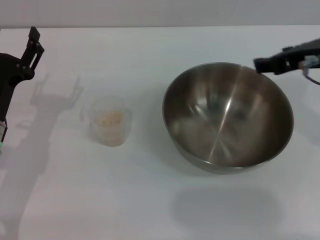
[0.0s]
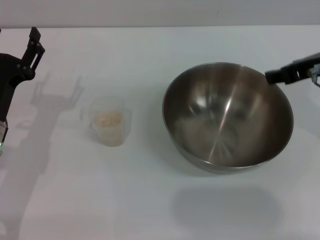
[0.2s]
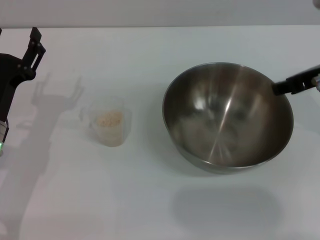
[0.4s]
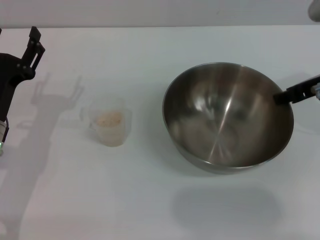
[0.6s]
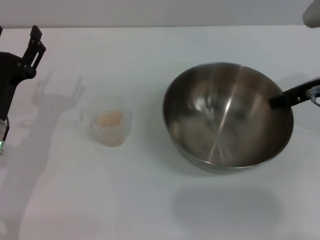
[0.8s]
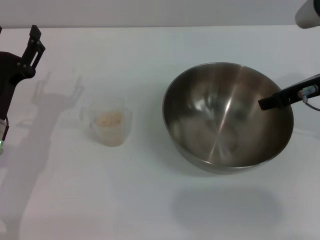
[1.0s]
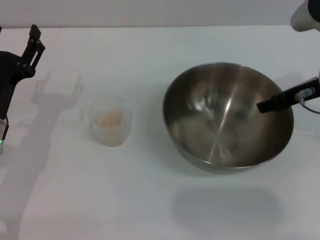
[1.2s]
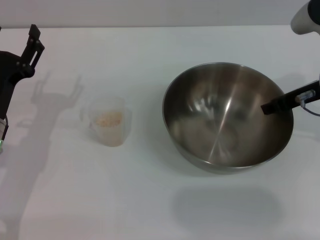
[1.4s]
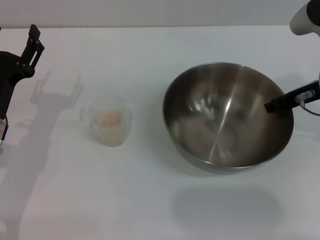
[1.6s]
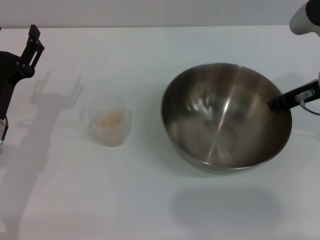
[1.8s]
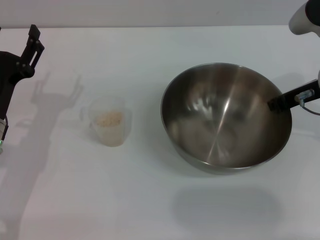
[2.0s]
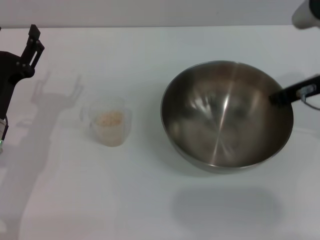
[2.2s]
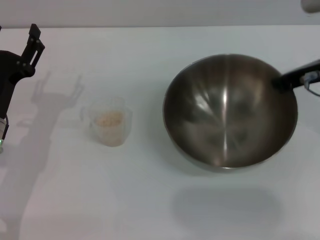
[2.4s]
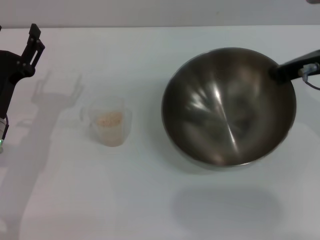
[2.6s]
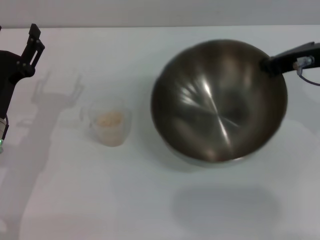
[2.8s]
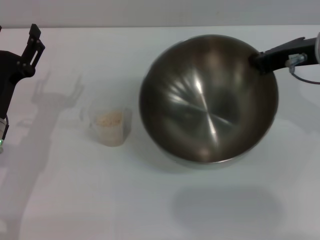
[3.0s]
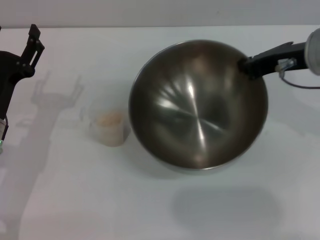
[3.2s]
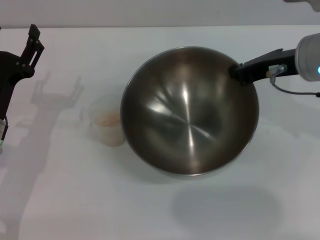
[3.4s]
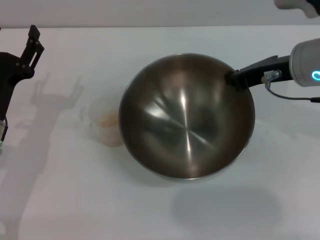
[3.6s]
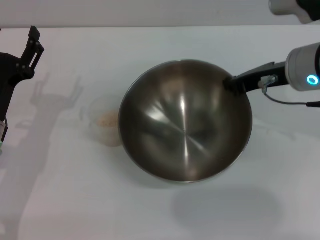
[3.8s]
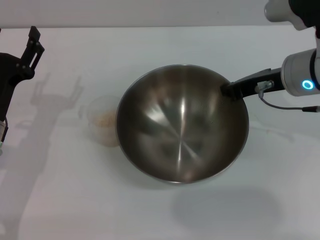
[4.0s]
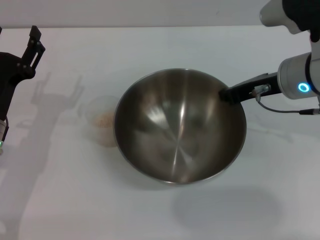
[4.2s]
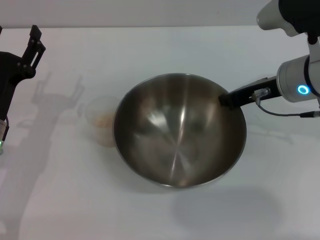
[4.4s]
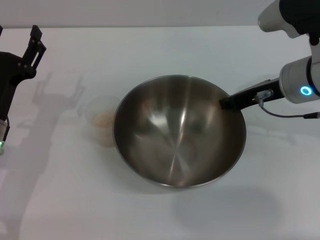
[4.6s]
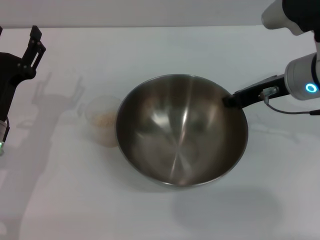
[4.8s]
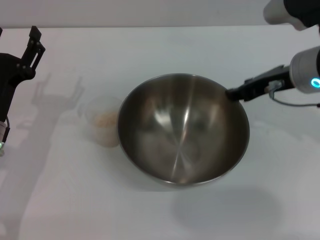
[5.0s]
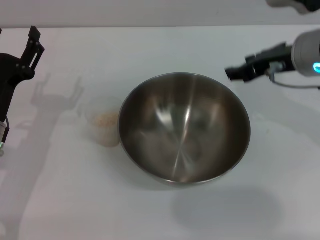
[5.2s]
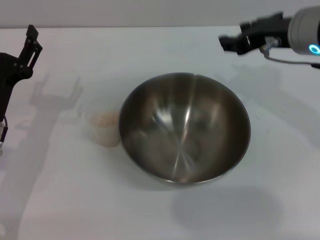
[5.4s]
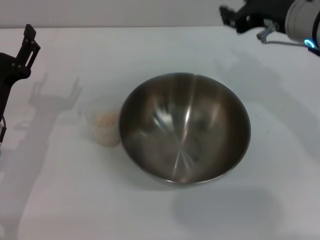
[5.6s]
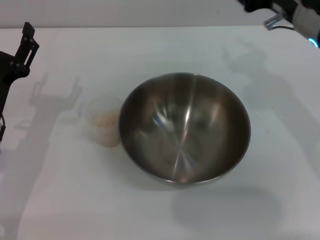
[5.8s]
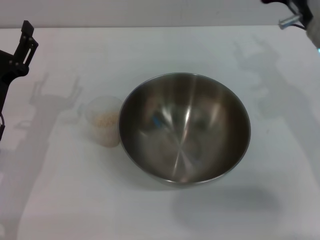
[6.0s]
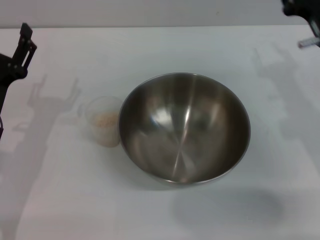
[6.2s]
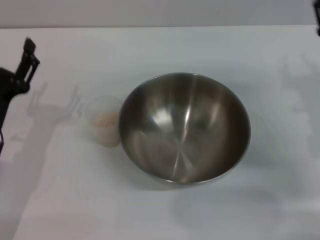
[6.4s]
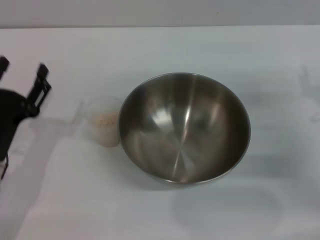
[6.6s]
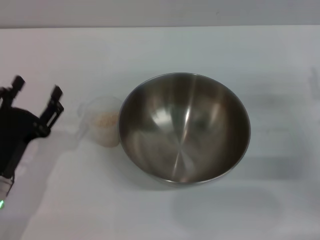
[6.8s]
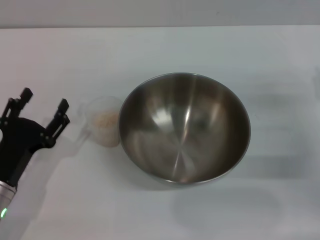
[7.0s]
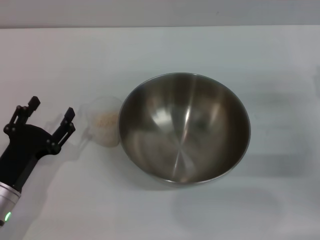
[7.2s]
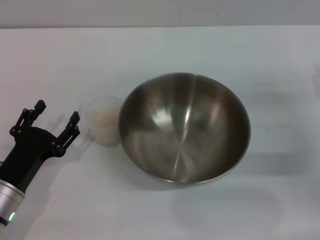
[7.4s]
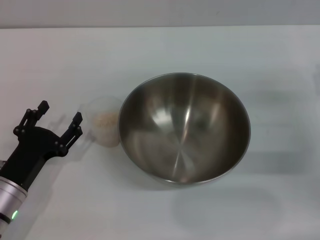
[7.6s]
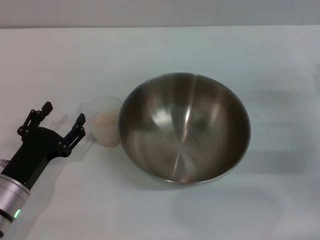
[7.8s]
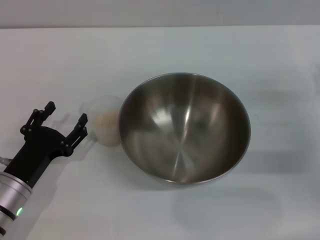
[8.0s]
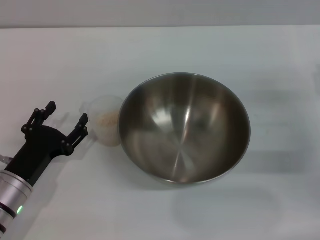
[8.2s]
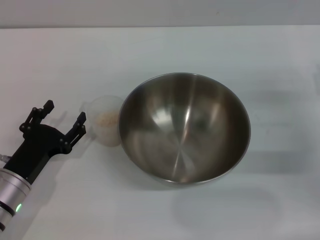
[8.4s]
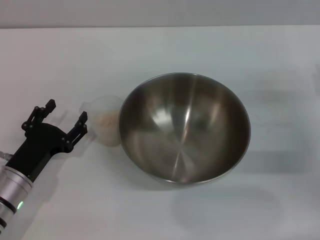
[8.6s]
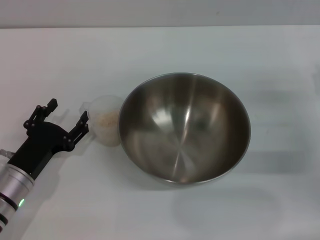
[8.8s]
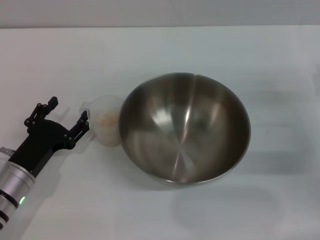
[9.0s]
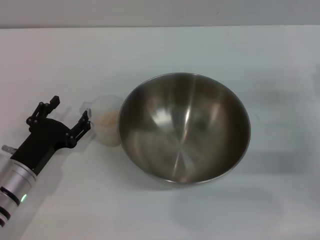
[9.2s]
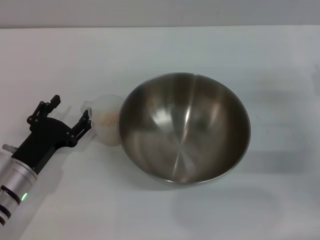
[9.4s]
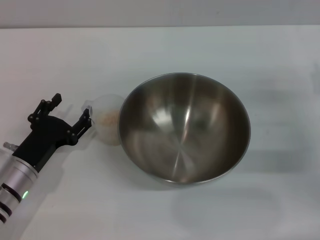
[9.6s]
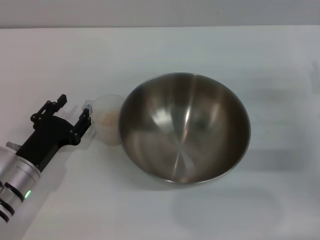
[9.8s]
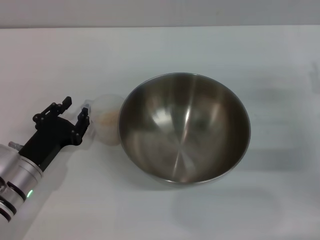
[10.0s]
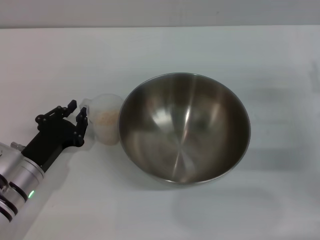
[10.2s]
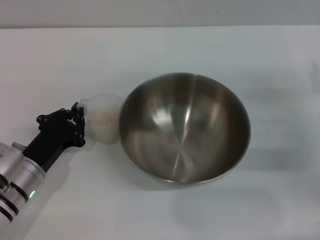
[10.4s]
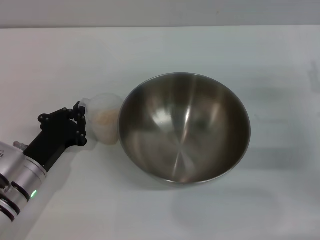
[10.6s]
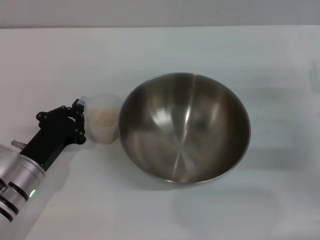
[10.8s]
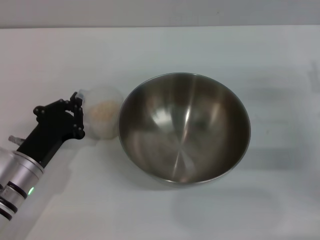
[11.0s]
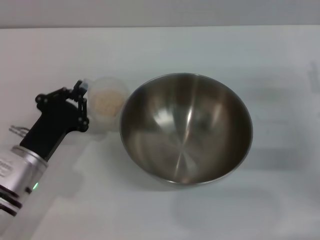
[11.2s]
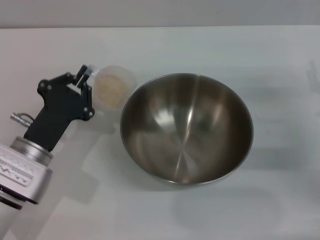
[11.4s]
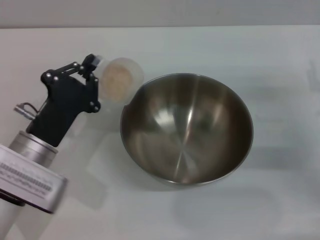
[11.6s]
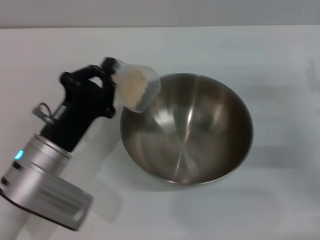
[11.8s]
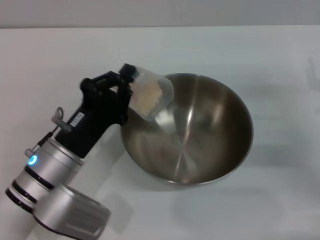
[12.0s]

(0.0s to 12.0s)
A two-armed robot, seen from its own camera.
Task of the whole recording: Place the bowl in the middle of the table with one hand and pour the rice from the grain cup into it with the other hand.
Step, 0.0s - 2.6s: Pick up the bowl with the right gripper.
Step, 2.8s - 5.0s: Place the bowl in the center of view with the right gripper.
Step, 5.2s - 11.2s: Pick up the cup with rice in it with the left gripper.
0.0s - 1.6s: The right gripper travels downward by about 5 cm.
1.6s - 3.0s: The right gripper changes place by approximately 5 cm, and closes.
3.0s - 4.4s: The right gripper goes approximately 5 cm downward.
4.4s - 6.0s: The right gripper opens up.
6.0s - 7.6s: The left gripper shifts about 10 cm backward and downward. The right gripper is displaced to the right, downward and backward by some 15 cm.
7.6s - 9.0s: The grippers make only small movements.
9.0s - 10.4s: The left gripper closes.
10.4s - 12.0s: The left gripper is displaced to the right and upward by approximately 10 cm.

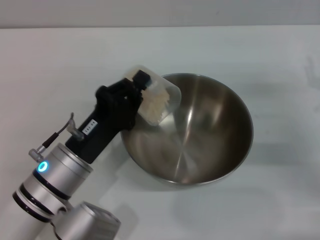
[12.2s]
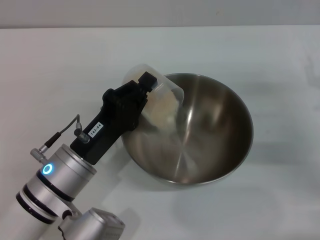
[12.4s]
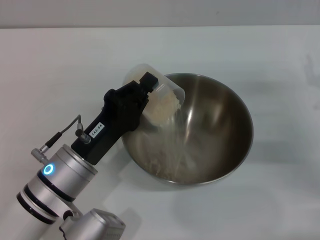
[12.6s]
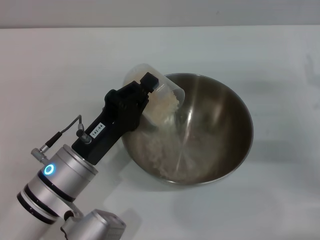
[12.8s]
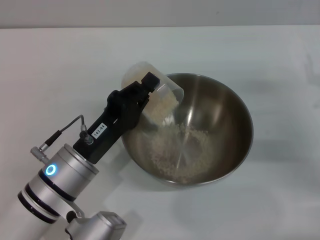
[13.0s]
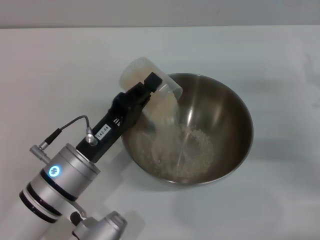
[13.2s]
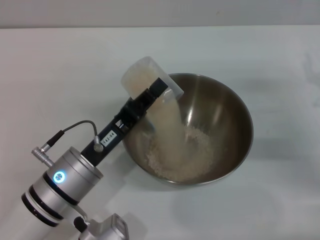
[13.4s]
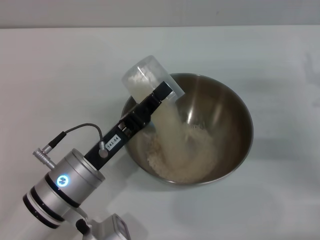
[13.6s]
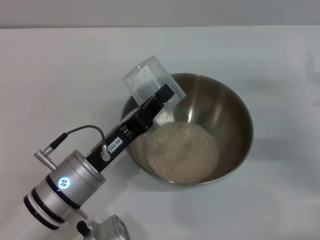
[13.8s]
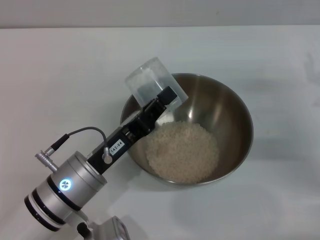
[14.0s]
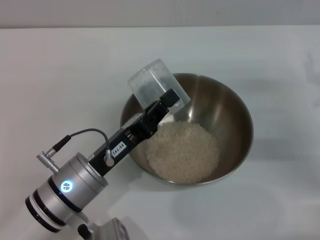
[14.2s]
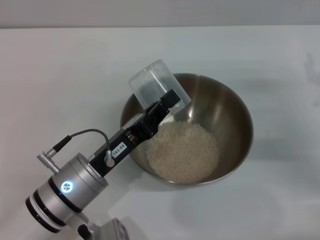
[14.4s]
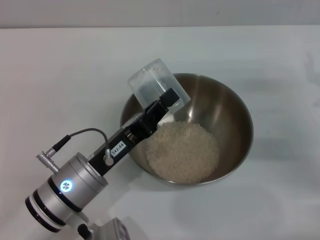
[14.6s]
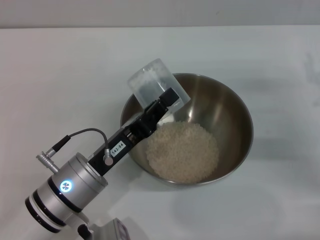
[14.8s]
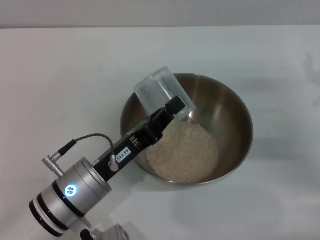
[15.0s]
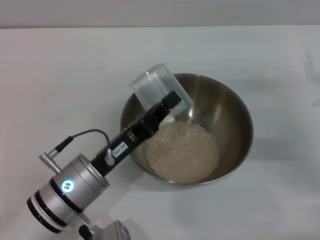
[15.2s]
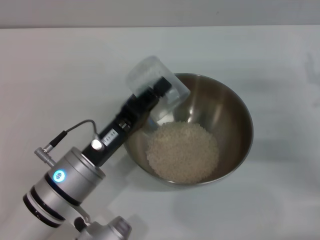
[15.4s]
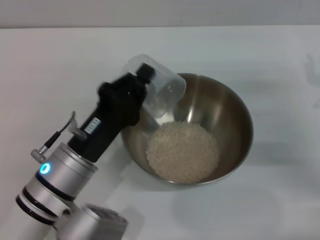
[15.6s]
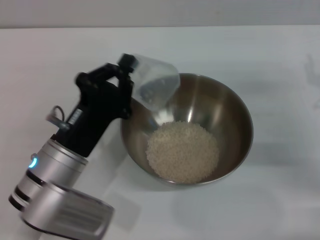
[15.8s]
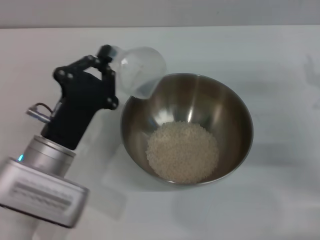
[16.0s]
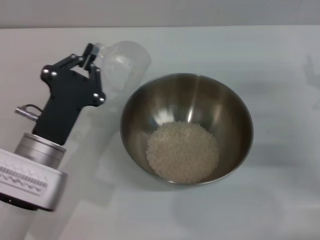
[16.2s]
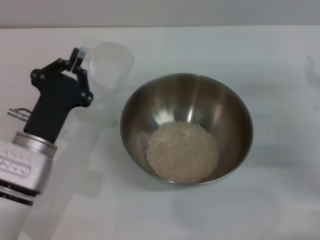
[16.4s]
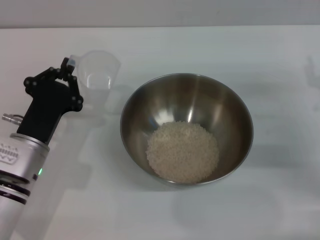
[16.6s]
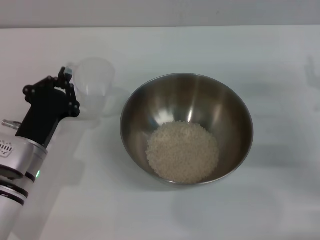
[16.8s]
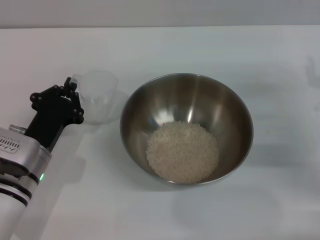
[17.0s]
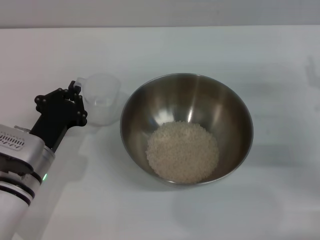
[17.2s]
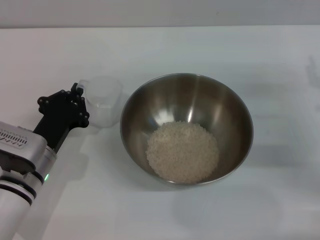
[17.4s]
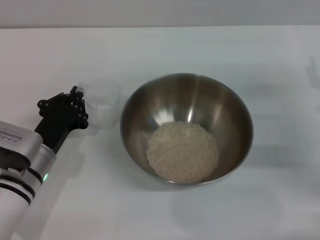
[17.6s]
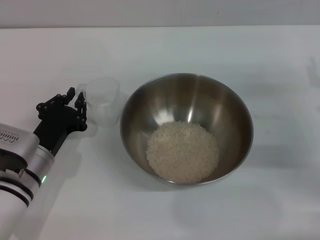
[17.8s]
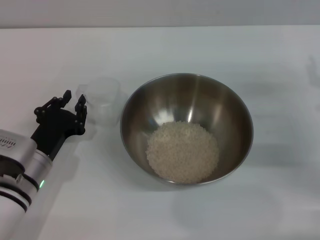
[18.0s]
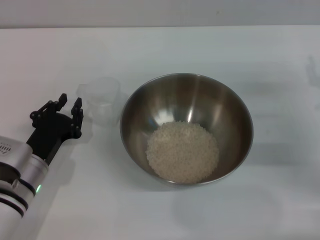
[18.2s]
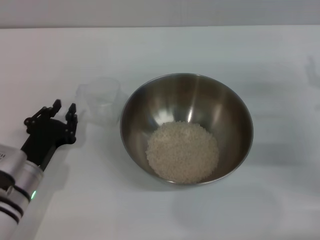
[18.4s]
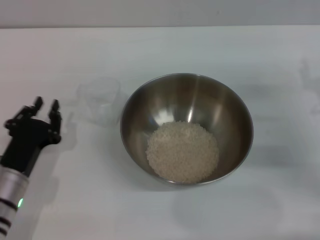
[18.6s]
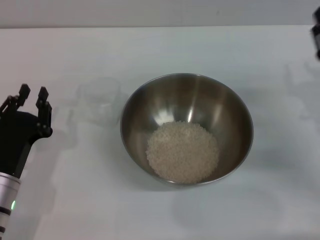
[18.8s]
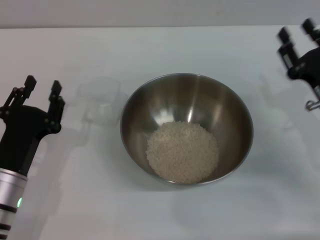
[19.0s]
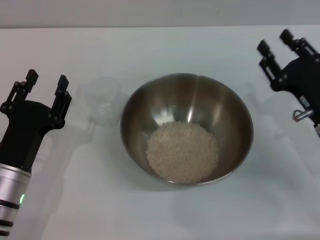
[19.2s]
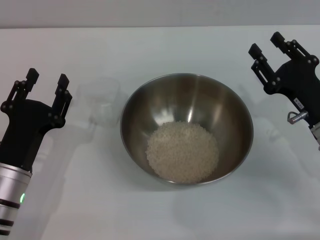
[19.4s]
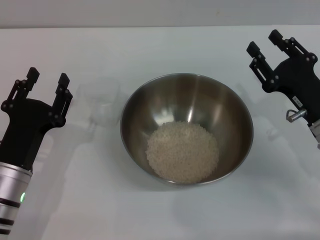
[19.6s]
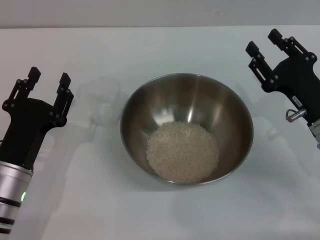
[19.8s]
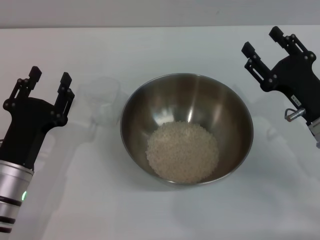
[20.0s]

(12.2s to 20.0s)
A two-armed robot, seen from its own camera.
Task of the whole recording: Place the bowl in the middle of the table with one hand and pour the rice from the grain cup into it with the other hand.
Step, 12.2s - 15.4s: Pour the rice from the cup into the bowl with the left gripper.
Step, 15.6s - 18.2s: Place the cup on the table with the left gripper.
13.8s - 15.4s: The grippers move only a little.
15.4s - 16.8s: The left gripper heads to the left, covering approximately 5 cm.
16.8s - 18.4s: The grippers make only small movements.
18.4s - 20.0s: The left gripper opens. The right gripper is displaced to the left by some 5 cm.

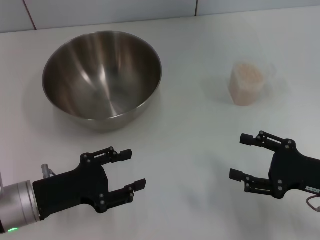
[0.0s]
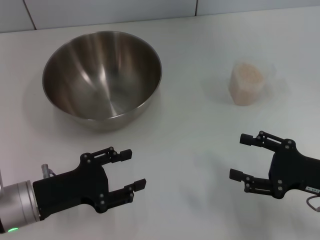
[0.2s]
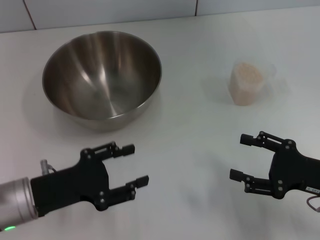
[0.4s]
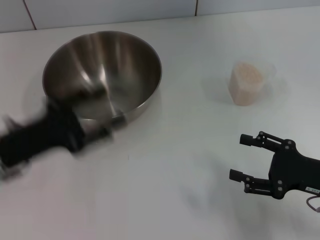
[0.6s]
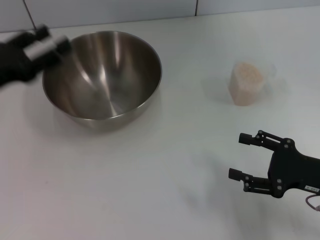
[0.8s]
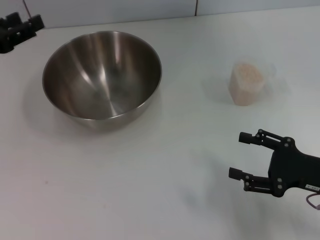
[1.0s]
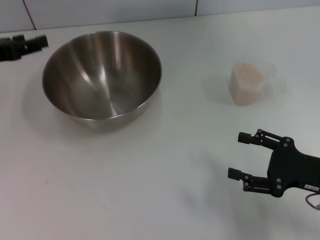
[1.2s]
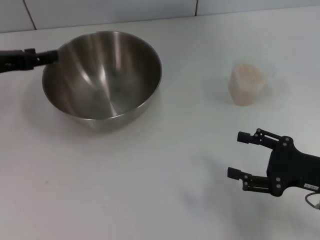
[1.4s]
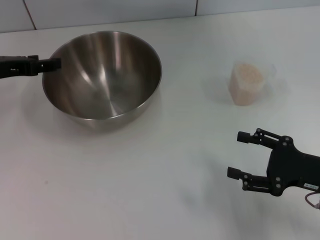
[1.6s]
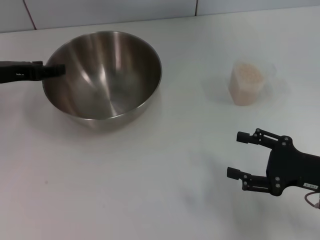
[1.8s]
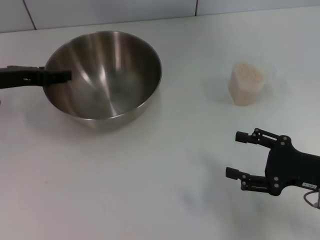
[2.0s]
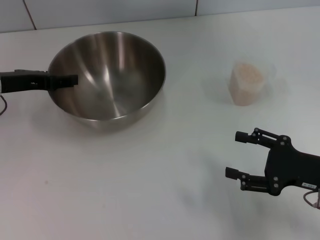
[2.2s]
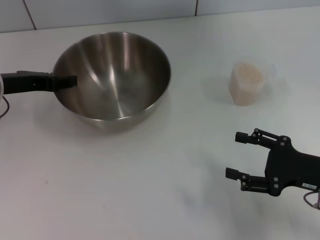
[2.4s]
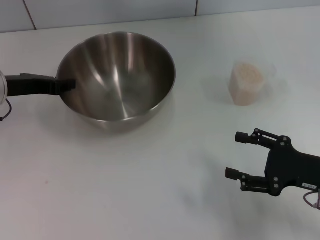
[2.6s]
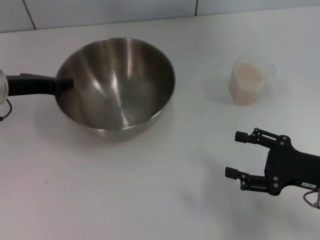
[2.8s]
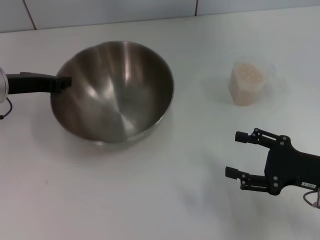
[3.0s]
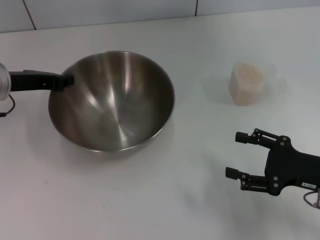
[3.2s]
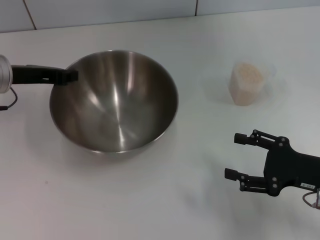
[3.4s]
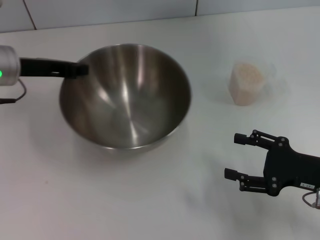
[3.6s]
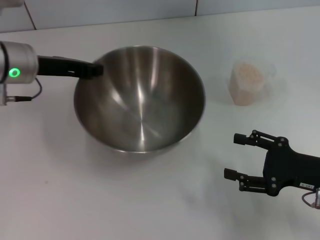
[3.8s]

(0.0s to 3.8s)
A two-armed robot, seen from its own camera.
Task of the whole recording: Place the bowl in the middle of the table with one hand and pour the rice from the grain cup into it with the other hand.
Step, 0.0s - 3.6s: Pick up the bowl with the left gripper.
0.0s - 1.2s: The left gripper shifts about 20 cm forward, upward and to the left.
1.2s - 2.6s: The left gripper ends up approximately 5 cm from where it was.
2.6s - 3.8s: The left gripper shifts by approximately 5 cm, and closes up.
